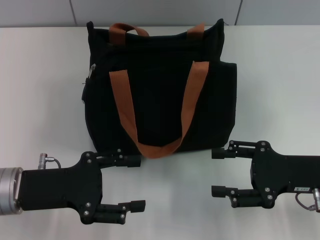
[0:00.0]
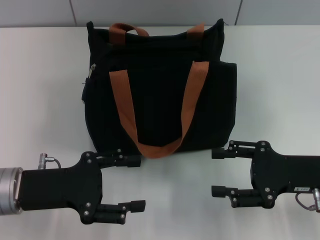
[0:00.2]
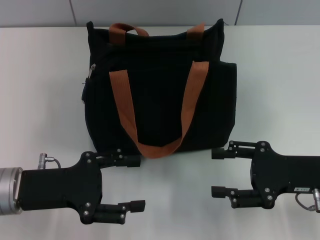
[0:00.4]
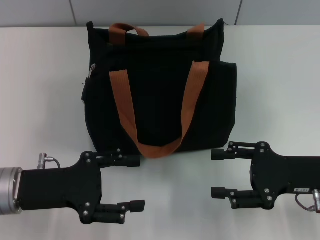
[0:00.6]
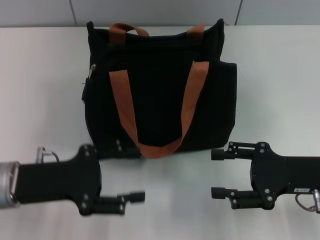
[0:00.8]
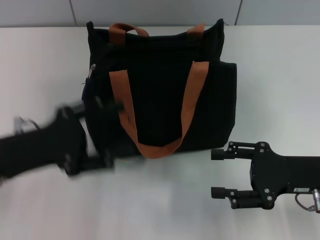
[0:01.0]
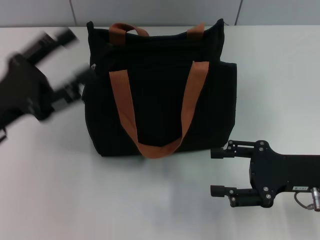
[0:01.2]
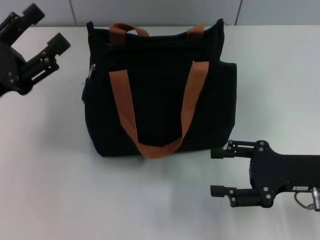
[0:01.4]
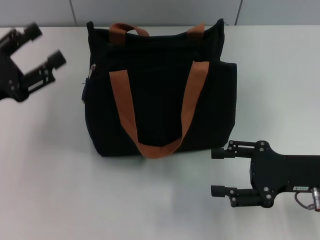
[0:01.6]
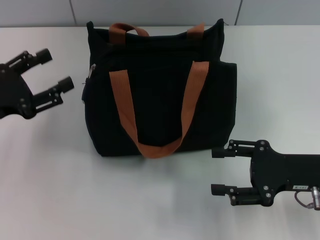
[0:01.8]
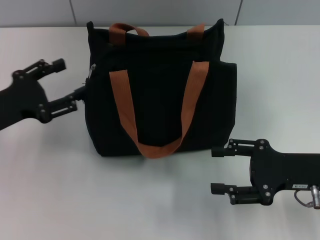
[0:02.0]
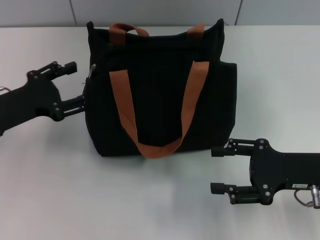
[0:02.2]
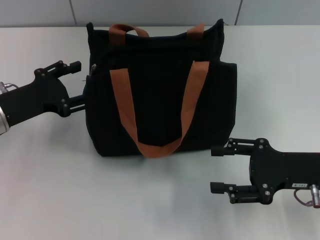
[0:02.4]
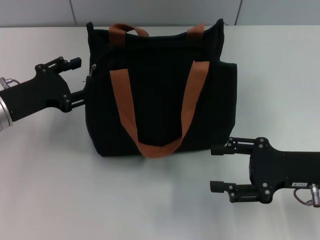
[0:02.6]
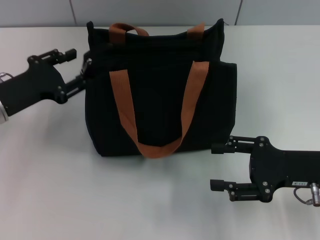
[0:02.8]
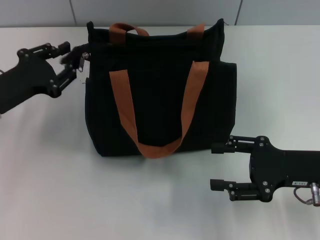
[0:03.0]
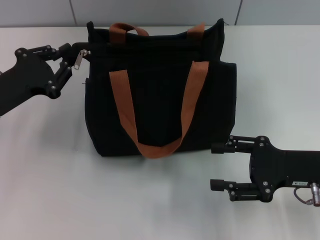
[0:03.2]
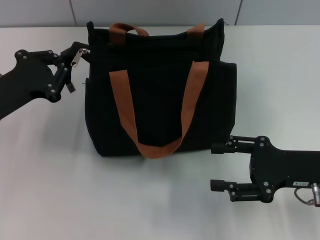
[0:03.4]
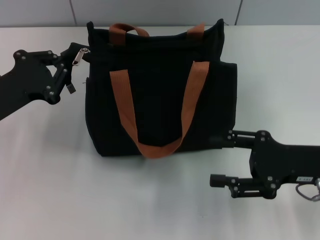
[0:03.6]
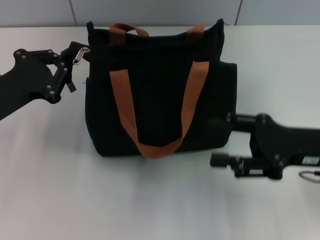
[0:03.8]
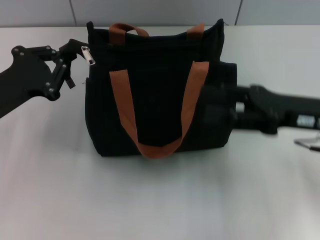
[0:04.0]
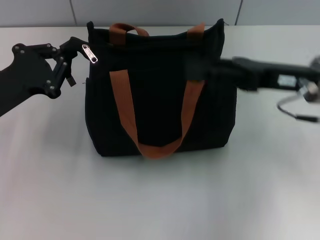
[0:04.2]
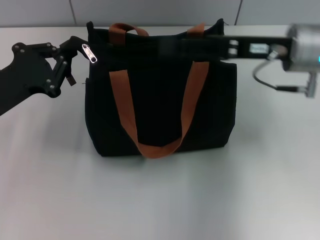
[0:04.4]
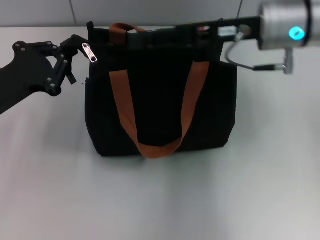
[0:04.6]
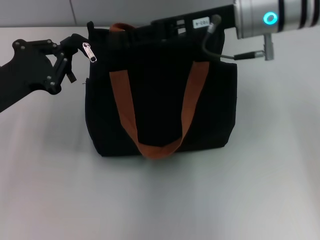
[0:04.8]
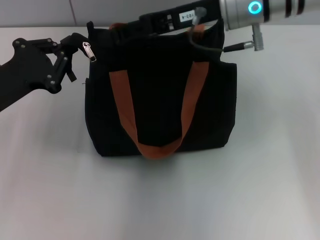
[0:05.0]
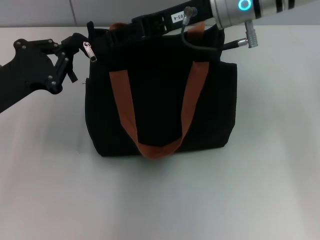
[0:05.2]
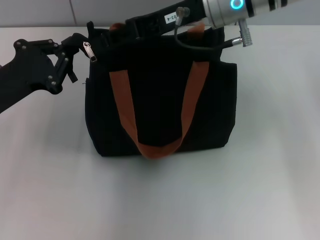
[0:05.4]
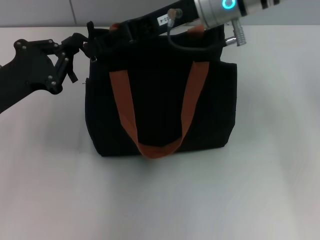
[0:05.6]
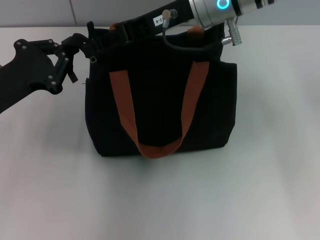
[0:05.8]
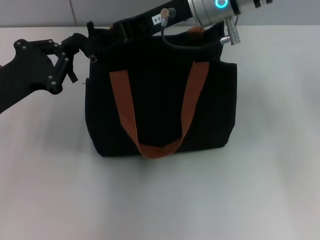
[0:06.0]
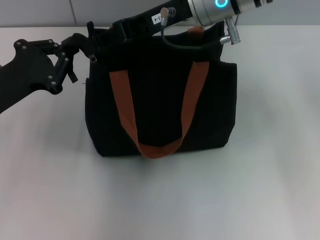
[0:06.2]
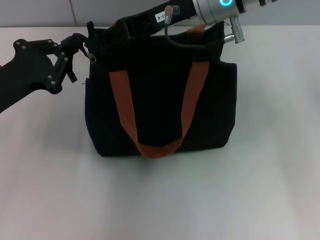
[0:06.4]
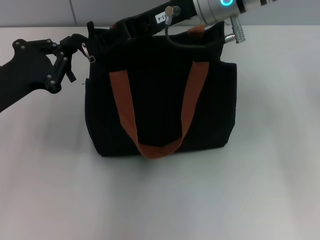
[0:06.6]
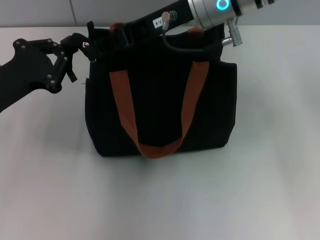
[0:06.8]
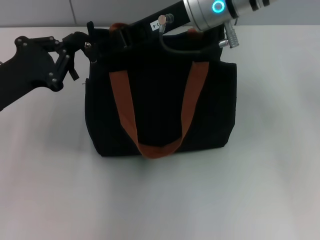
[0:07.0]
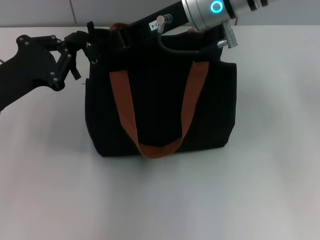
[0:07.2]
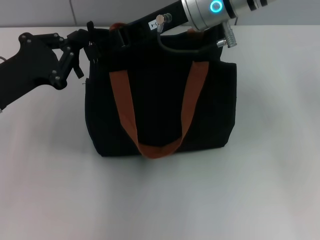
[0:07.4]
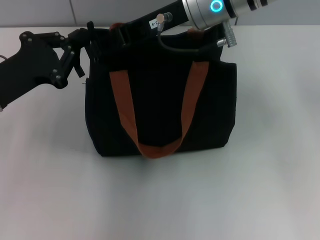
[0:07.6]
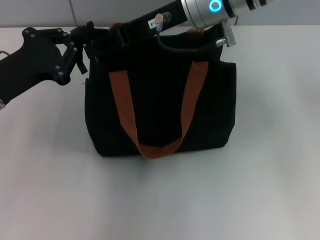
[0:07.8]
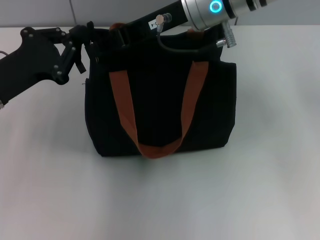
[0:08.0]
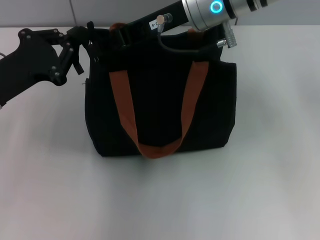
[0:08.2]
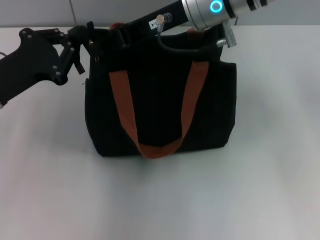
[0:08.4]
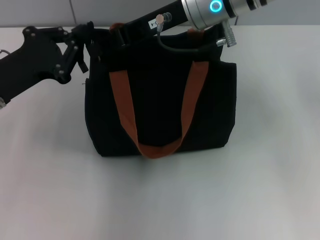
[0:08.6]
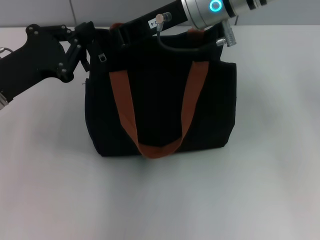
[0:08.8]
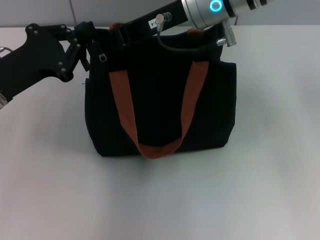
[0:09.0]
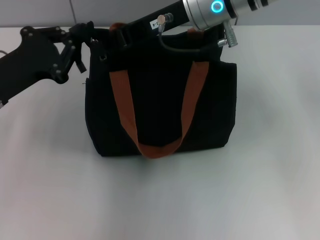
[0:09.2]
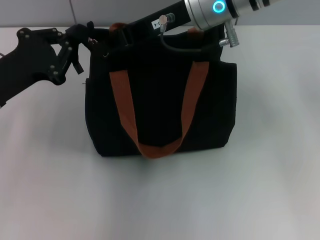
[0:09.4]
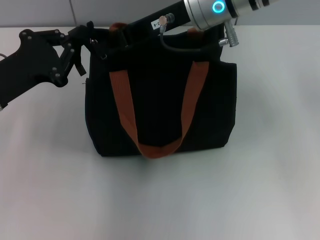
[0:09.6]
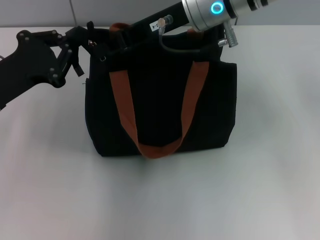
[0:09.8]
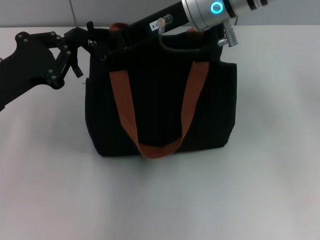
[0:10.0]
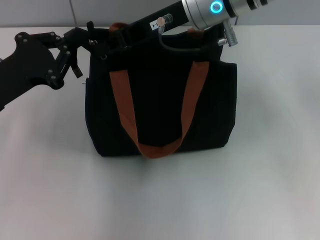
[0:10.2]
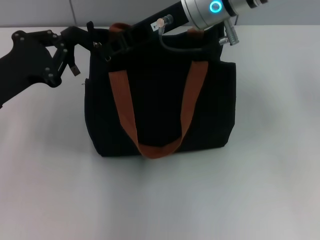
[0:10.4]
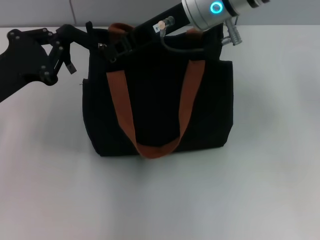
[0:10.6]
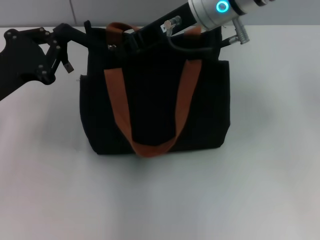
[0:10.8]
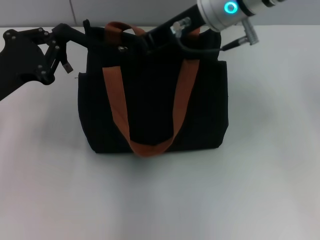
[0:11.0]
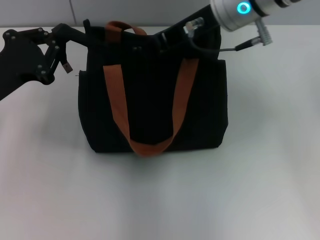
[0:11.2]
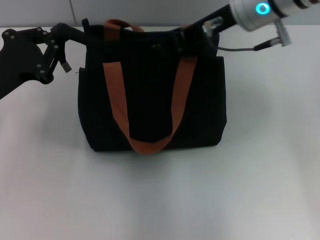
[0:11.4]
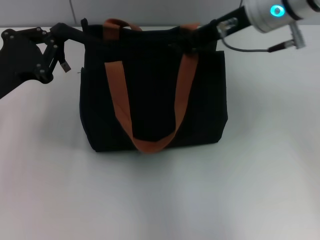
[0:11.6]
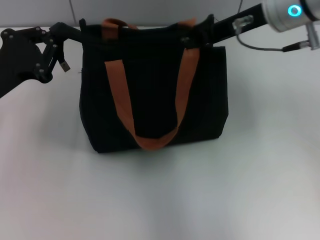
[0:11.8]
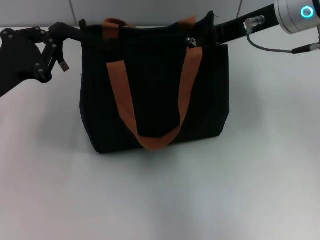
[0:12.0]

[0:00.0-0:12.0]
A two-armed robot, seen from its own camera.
0:00.0 to 0:01.6: The left gripper goes some 5 cm to the left.
0:01.6 to 0:03.0: The left gripper ends up approximately 5 cm from where it was.
0:03.0 to 0:04.4: The left gripper closes up. Meanwhile the right gripper is displaced forward, upward and to the left by roughly 15 cm.
0:04.4 to 0:06.0: The right gripper moves to the left and upward, approximately 15 cm, and closes its fingers.
0:06.0 to 0:07.6: The two grippers keep their place.
0:07.6 to 0:09.0: Both grippers stay put.
0:09.0 to 0:10.4: There are only small adjustments of the grippers.
0:10.4 to 0:12.0: The right gripper shifts roughly 10 cm to the right.

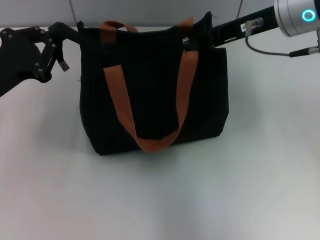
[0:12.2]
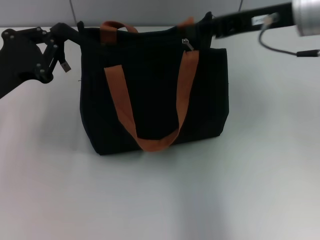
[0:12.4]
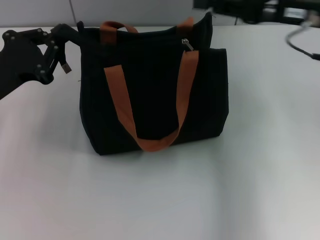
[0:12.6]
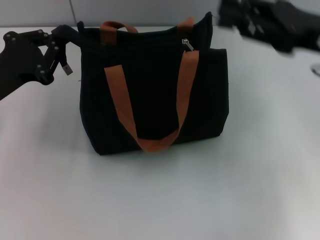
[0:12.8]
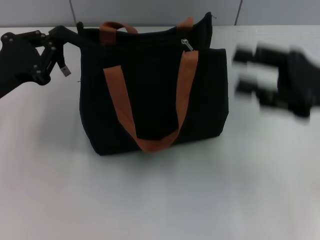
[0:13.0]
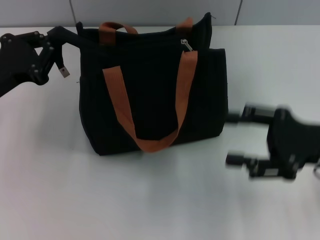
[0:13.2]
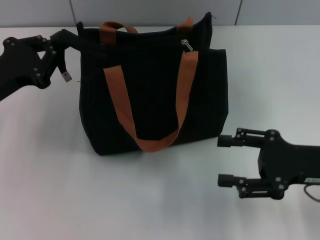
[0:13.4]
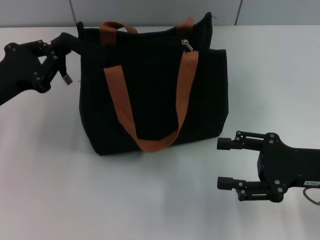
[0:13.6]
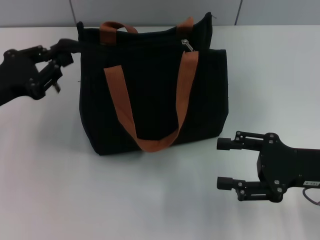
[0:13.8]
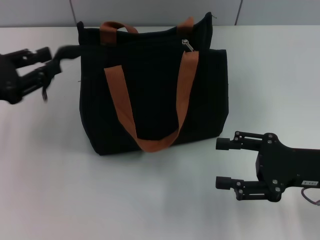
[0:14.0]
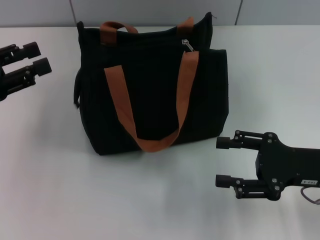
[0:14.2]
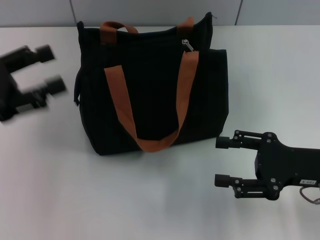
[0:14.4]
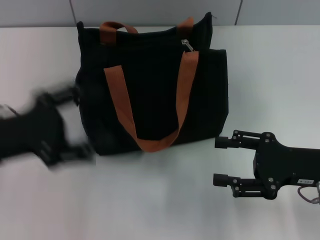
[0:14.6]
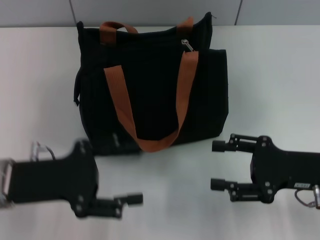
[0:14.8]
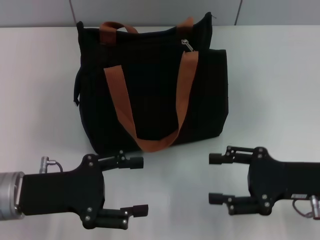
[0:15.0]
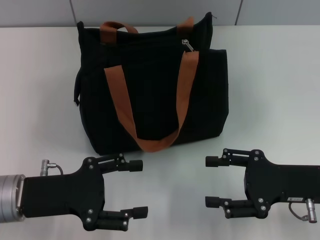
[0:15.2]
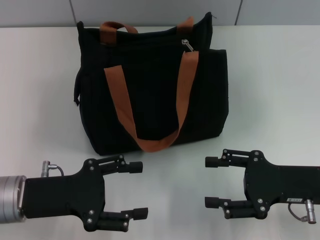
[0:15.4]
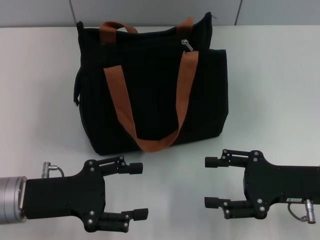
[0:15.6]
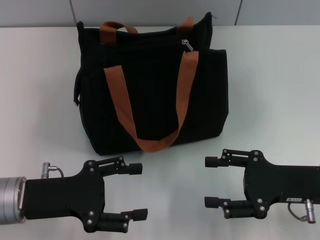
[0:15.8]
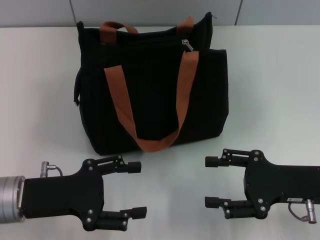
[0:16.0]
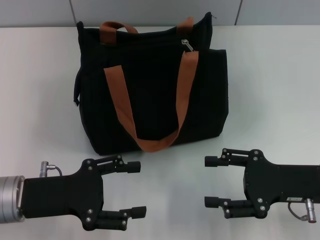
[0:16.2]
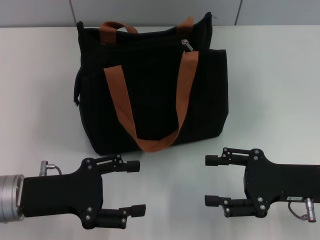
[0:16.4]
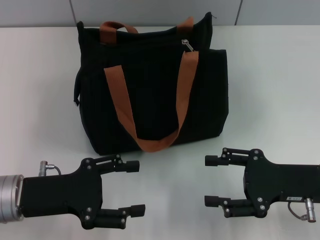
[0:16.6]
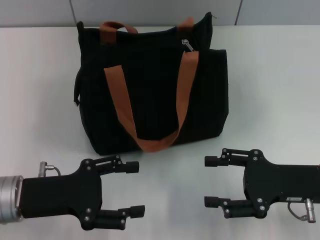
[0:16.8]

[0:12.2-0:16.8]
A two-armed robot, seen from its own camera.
Step, 0:12.4 to 0:14.0: Grab the zipper with your left hand.
0:12.2 to 0:13.8: The right gripper is displaced downward, backward and to the right by about 20 cm, and opens.
0:13.8 to 0:15.2: The left gripper travels backward and to the right by about 10 cm, and opens its fingers.
0:15.2 to 0:16.8: Both grippers stay about where they are.

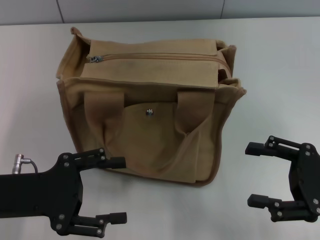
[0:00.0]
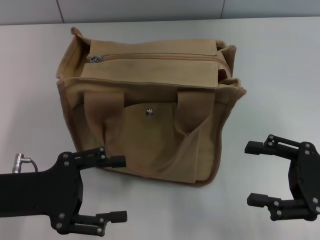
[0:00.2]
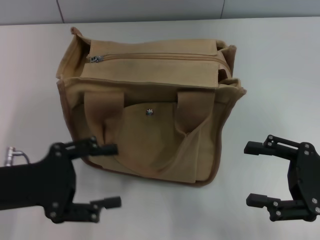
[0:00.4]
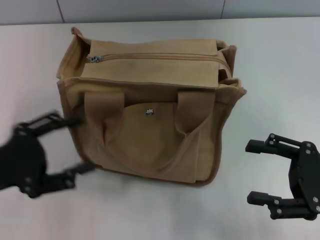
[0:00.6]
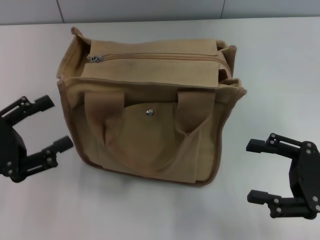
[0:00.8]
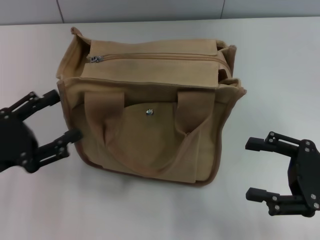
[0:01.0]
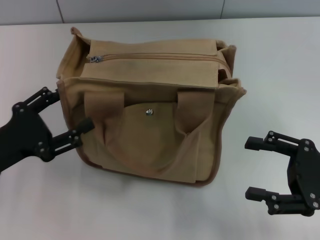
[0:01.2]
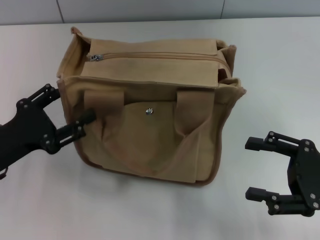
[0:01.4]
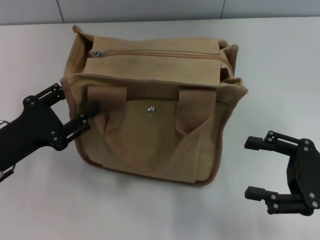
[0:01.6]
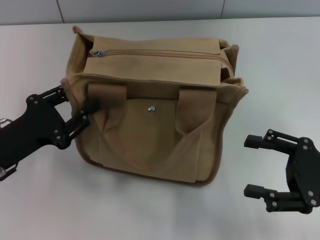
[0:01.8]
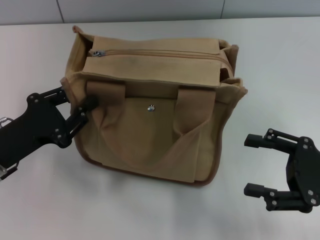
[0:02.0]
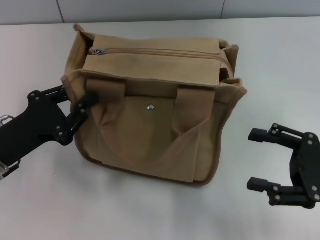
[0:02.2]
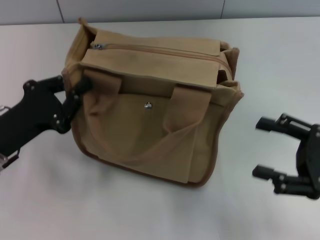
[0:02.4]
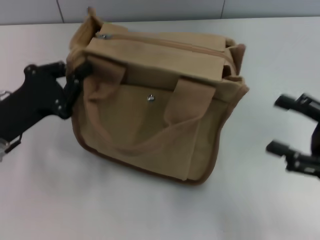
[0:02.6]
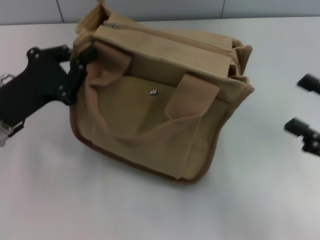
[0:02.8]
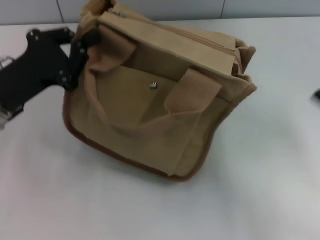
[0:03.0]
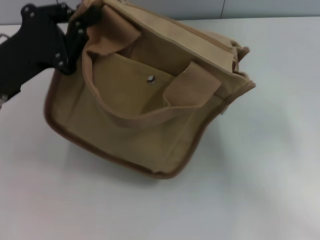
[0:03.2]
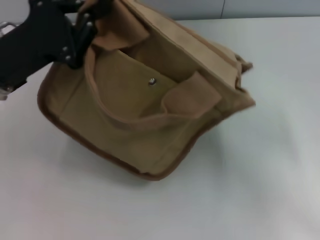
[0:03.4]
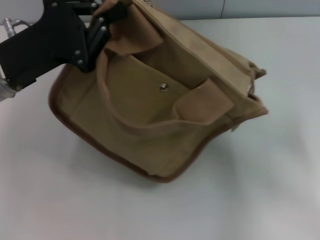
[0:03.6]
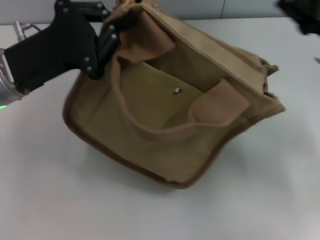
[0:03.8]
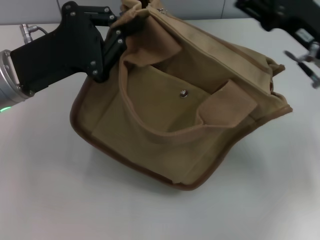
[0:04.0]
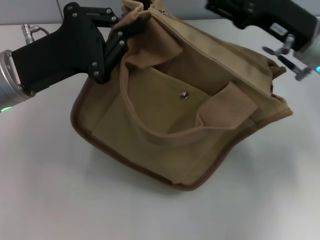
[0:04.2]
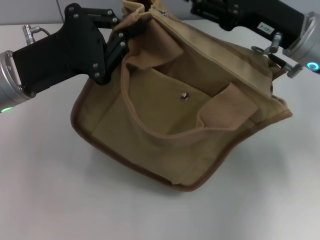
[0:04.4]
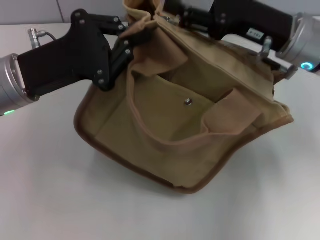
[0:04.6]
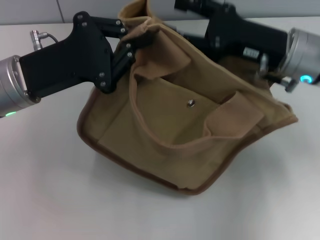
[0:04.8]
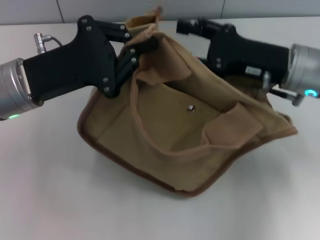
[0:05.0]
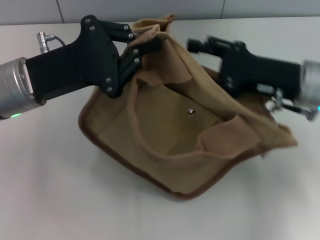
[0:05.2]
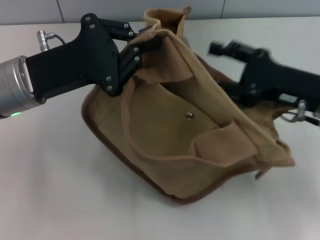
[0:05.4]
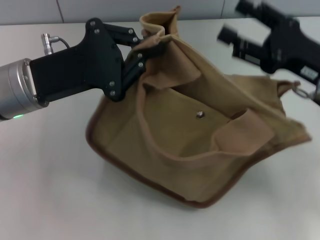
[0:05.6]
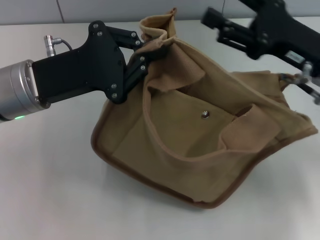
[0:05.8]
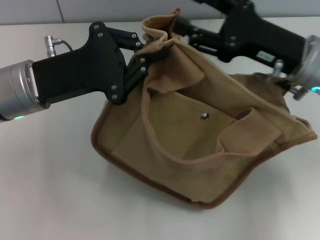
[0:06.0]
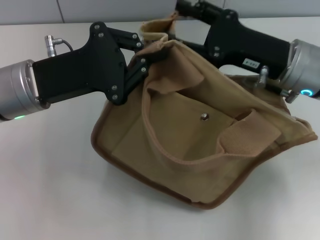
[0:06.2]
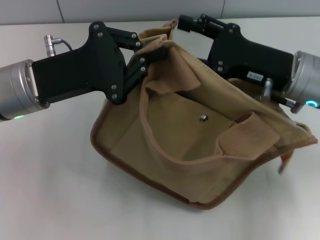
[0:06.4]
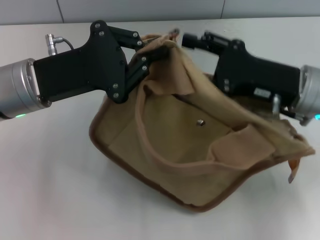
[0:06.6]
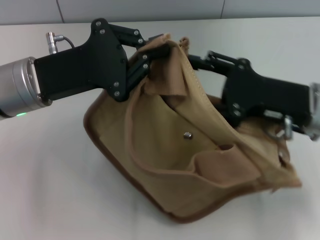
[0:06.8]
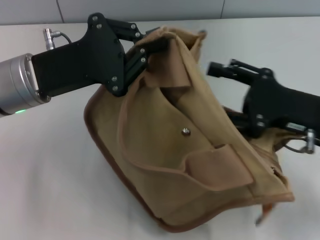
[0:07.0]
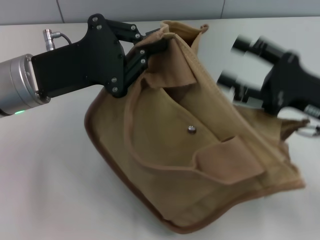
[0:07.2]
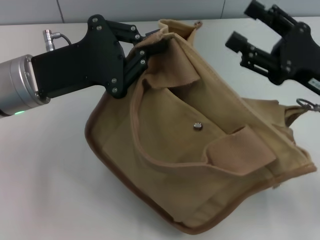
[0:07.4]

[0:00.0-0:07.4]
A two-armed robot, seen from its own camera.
0:01.4 to 0:03.0: The left gripper is displaced forward by roughly 5 cm, and closes its fingers.
0:03.0 to 0:04.4: The right gripper shifts about 20 cm forward and to the left. Meanwhile the left gripper moves about 5 cm.
0:06.0 to 0:07.4: The right gripper travels to the right by some 5 cm.
